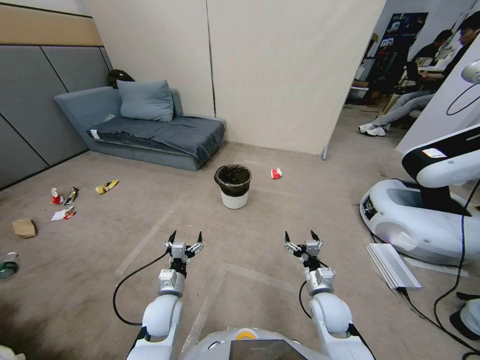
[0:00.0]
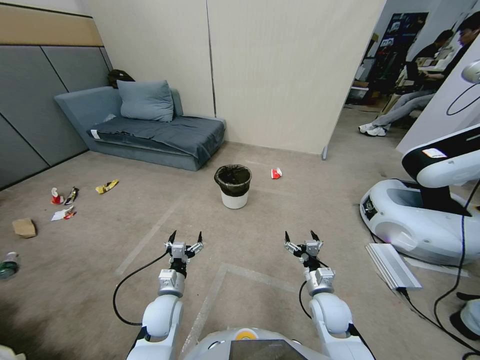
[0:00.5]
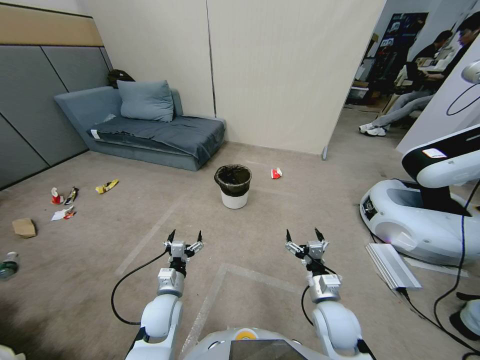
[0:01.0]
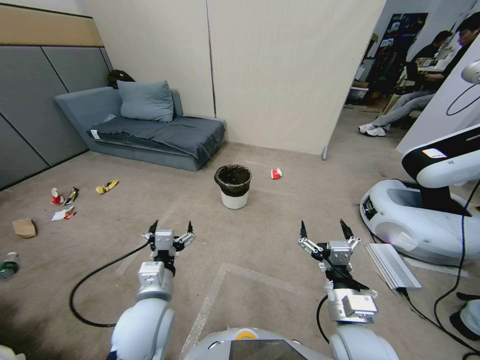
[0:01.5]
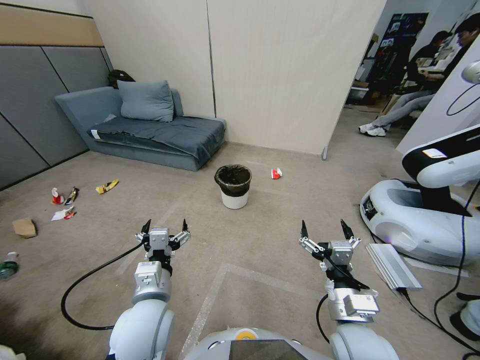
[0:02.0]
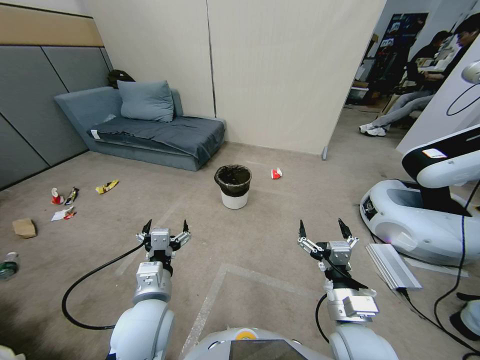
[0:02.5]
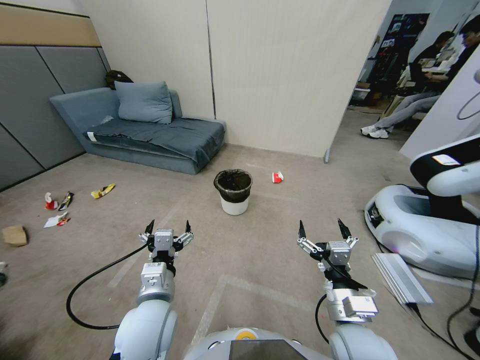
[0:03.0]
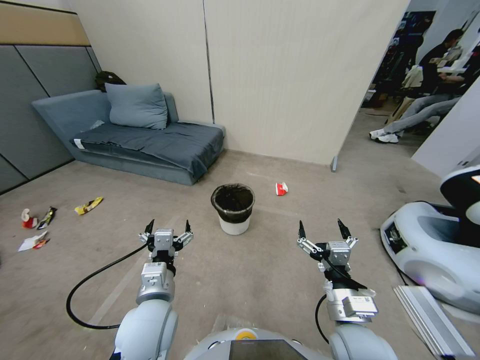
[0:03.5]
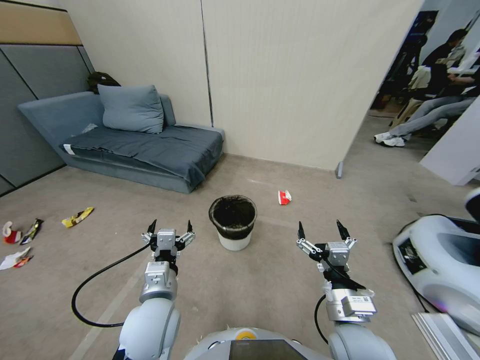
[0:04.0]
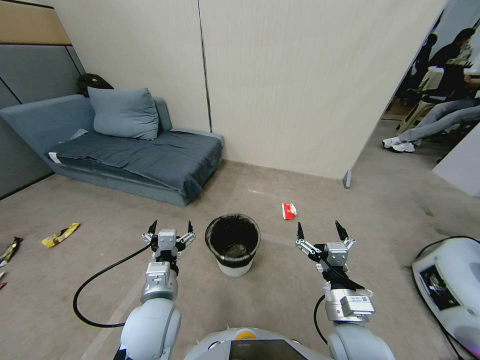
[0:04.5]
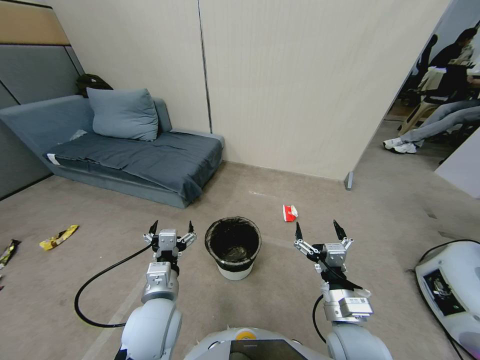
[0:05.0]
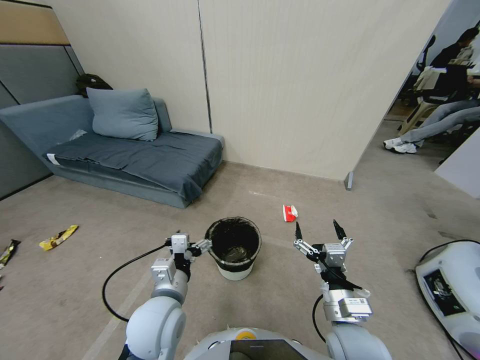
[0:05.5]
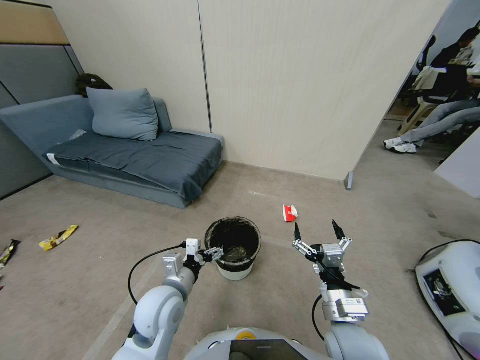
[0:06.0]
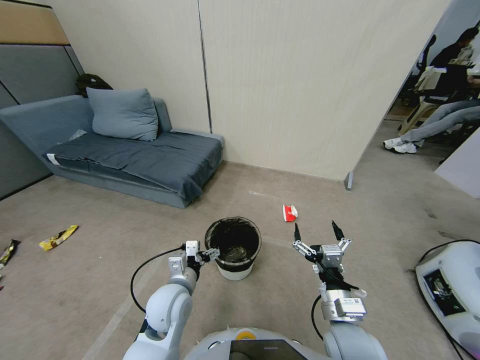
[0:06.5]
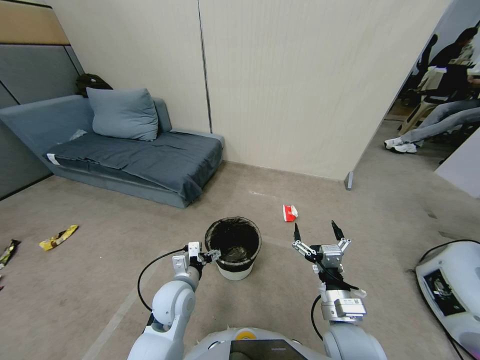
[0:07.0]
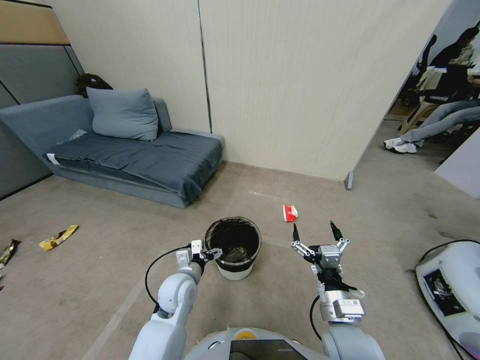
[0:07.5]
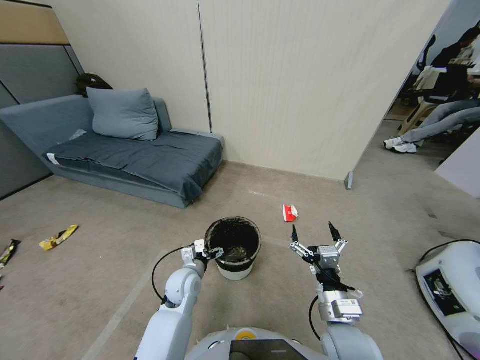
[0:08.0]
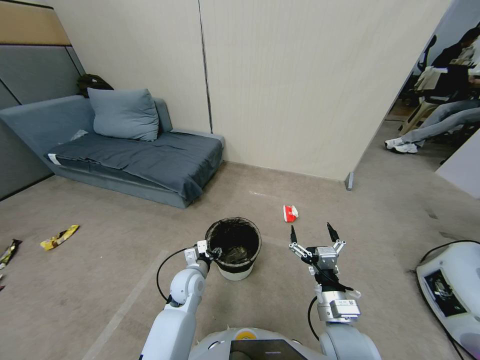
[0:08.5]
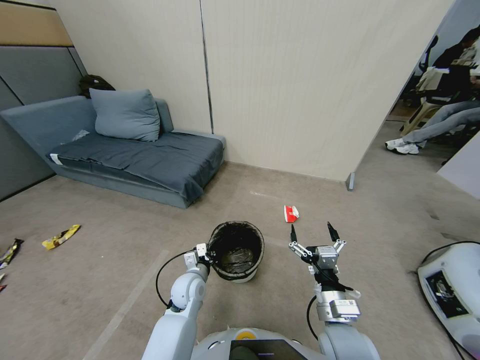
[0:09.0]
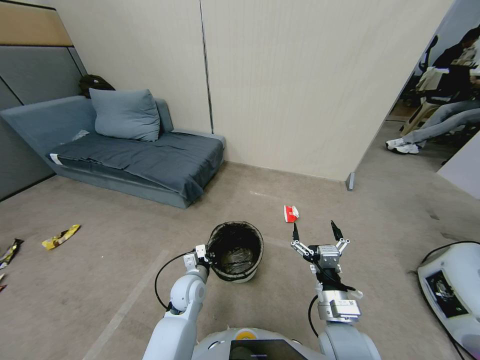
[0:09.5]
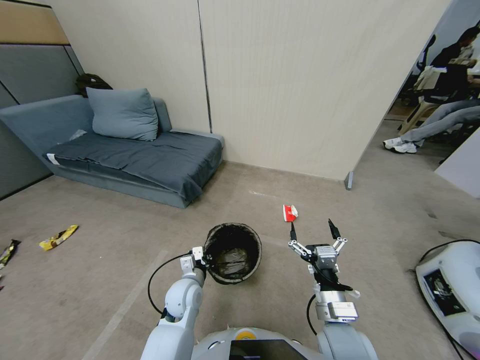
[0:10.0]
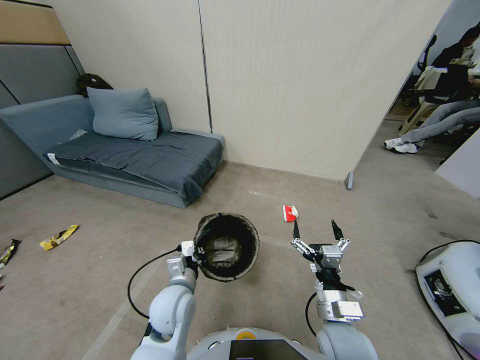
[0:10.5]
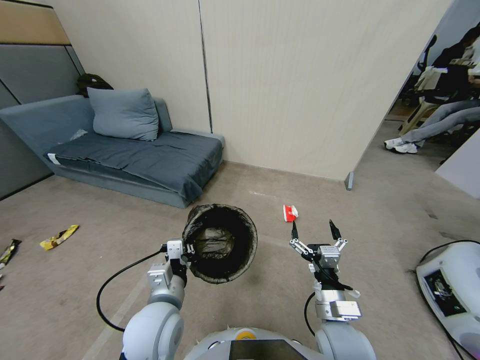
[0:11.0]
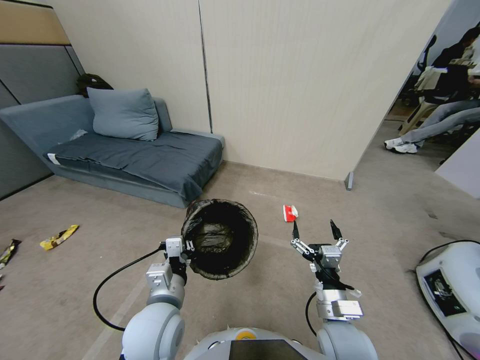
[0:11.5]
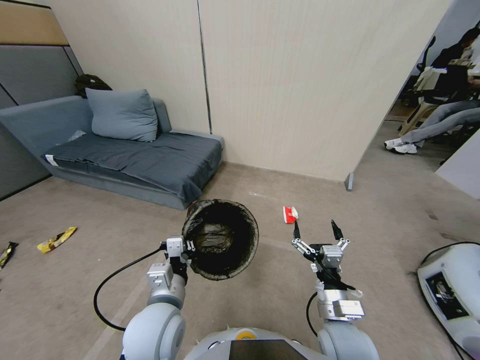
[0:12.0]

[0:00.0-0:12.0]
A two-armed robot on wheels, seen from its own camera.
Task of the whole recording: Pick up the trash bin, then pick up the garbage from the floor and place it into the trash bin.
0:04.0 to 0:06.0: The left gripper ends up roughly 5 cm from where it was.
0:06.0 to 0:08.0: The left gripper is displaced downward and forward by approximately 10 cm.
0:08.0 to 0:10.0: The left gripper closes up.
0:10.0 to 0:12.0: The left gripper travels upward and backward by some 15 cm.

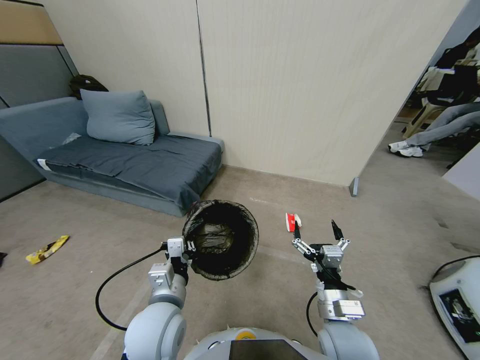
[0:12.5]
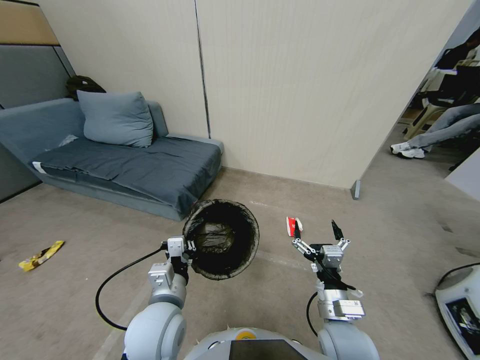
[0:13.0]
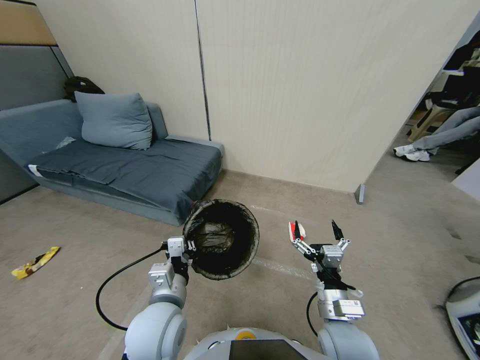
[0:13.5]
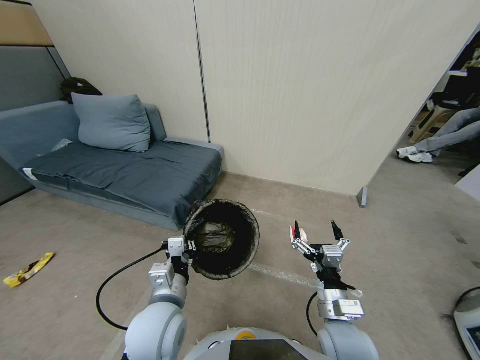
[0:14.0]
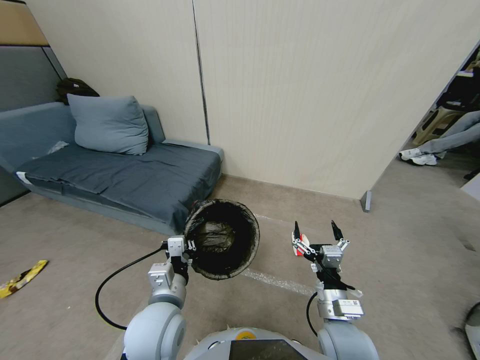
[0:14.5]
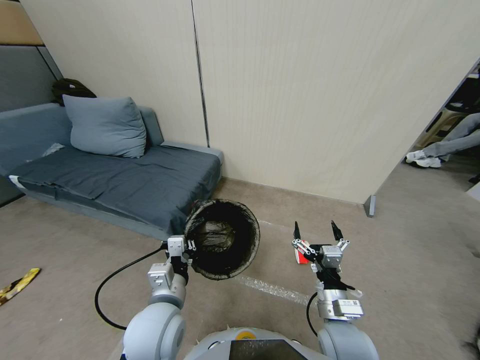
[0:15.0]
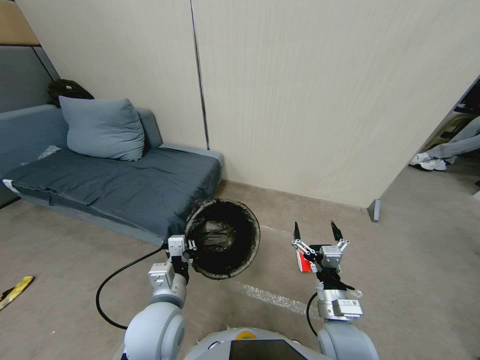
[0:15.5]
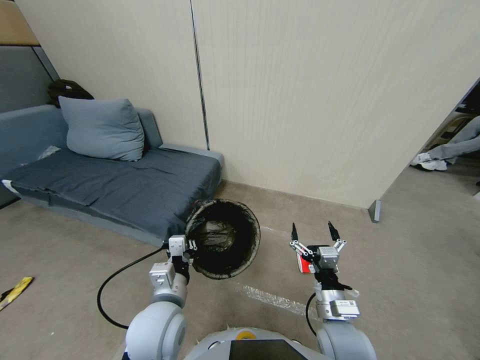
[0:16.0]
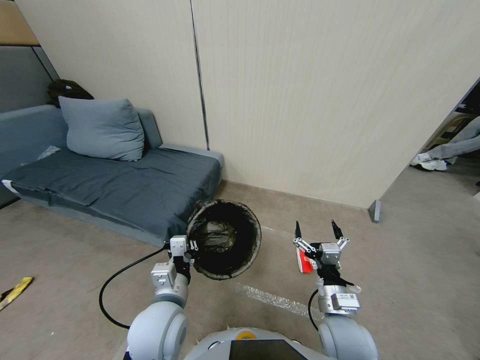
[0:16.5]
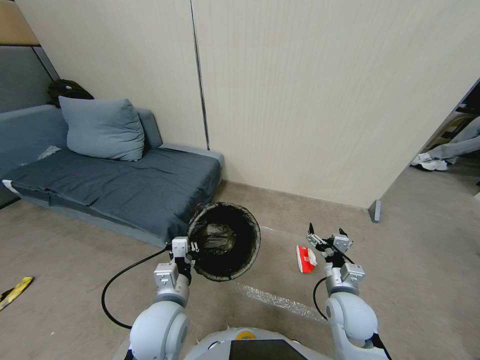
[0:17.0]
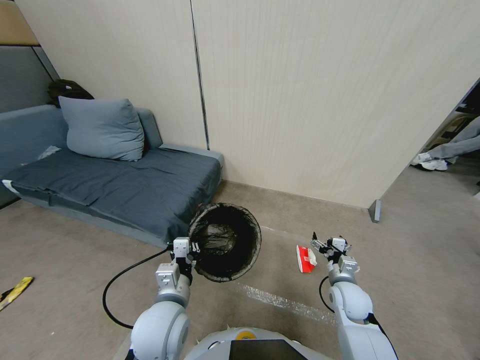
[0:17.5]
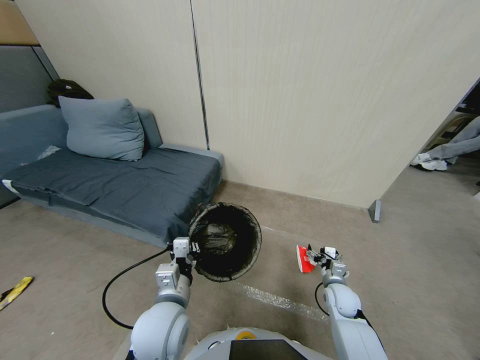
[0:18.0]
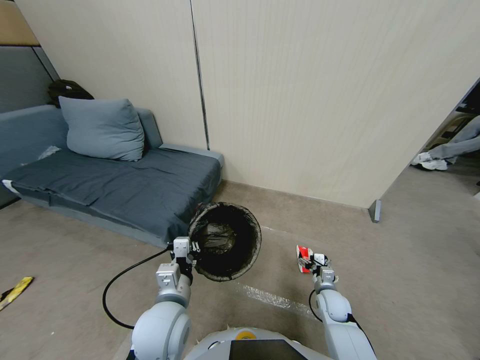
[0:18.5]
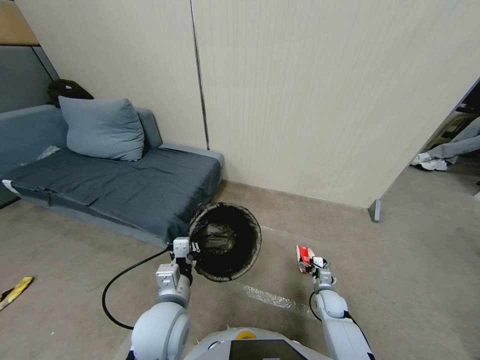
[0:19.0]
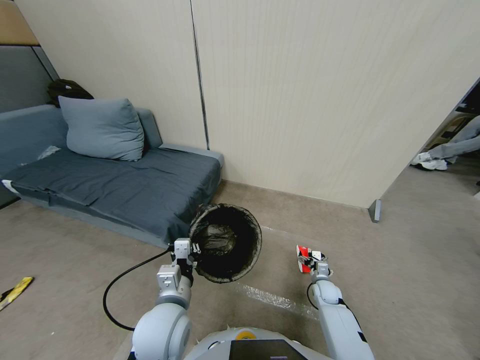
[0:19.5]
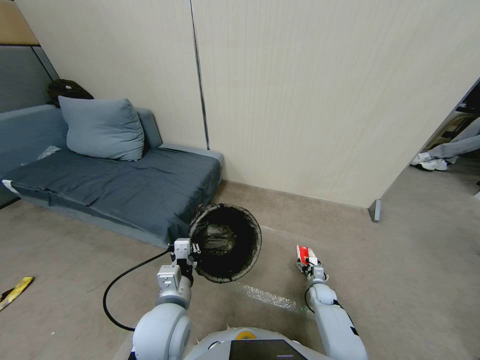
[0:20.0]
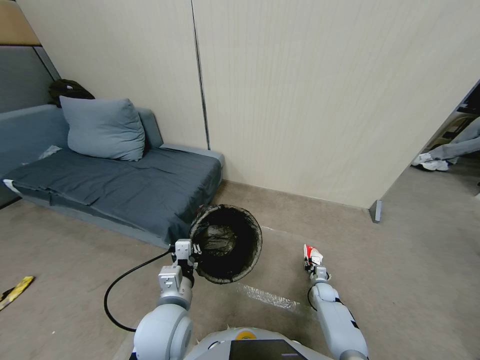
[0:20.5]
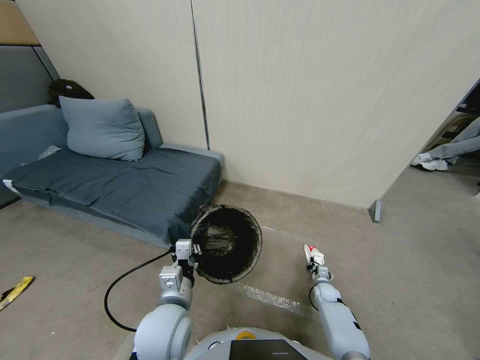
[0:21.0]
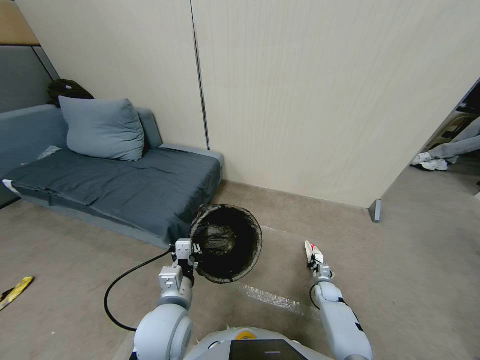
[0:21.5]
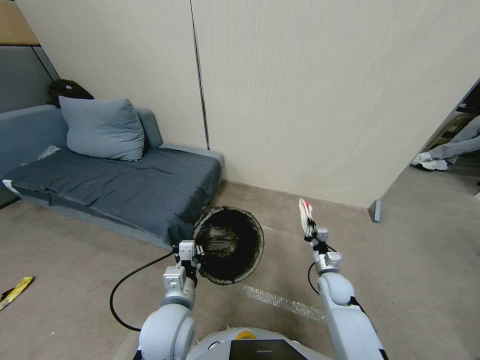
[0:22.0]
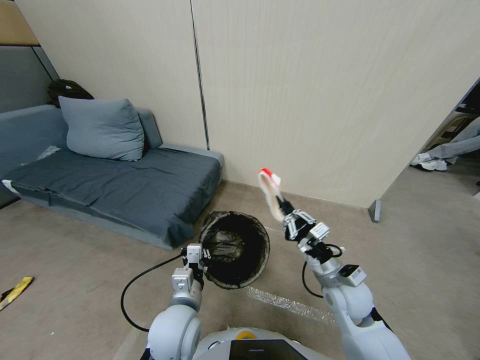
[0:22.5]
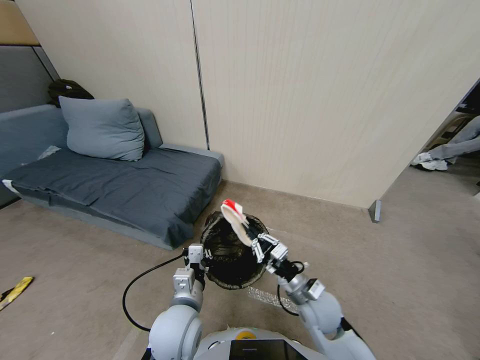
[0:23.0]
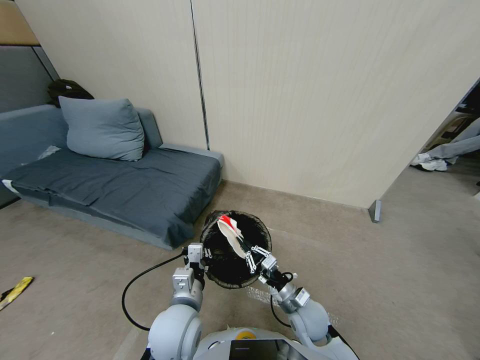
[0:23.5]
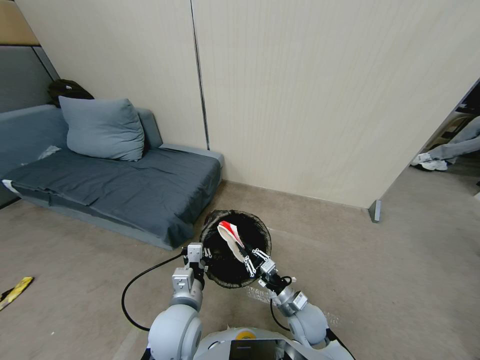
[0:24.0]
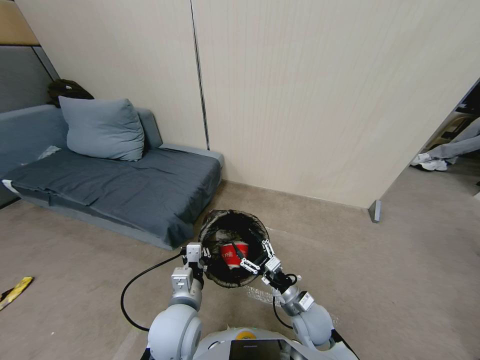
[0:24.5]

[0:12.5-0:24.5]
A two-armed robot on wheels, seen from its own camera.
Task of the whole recording: Pick up the trash bin, then pick up the garbage from the floor and place it into the trash bin.
0:12.5 to 0:14.5: Both grippers stay about where they are.
0:14.5 to 0:16.5: The grippers make only small movements.
0:16.5 to 0:18.5: The right gripper goes about 25 cm downward, forward and to the right.
0:18.5 to 0:20.5: The right gripper goes approximately 15 cm downward, forward and to the right, and closes up.
0:20.5 to 0:22.5: The right gripper is displaced upward and to the left by some 35 cm.
0:22.5 to 0:24.5: The right gripper travels downward and to the left by approximately 10 cm, and opens up.

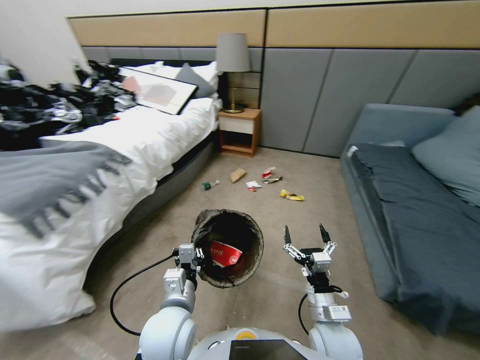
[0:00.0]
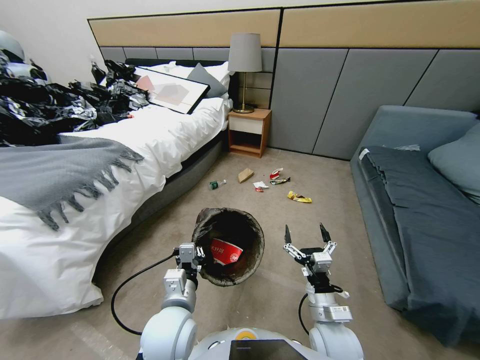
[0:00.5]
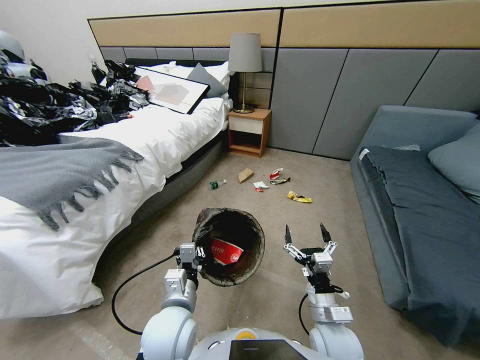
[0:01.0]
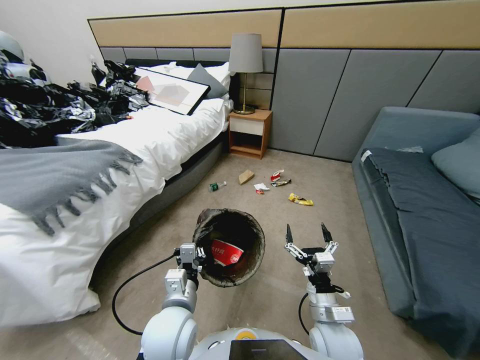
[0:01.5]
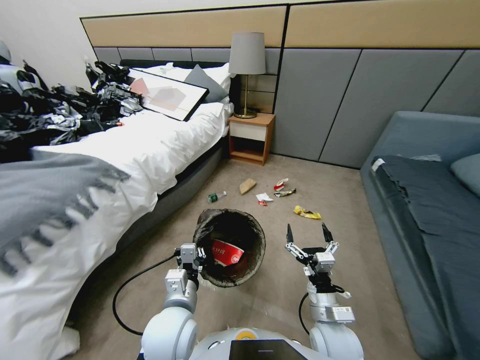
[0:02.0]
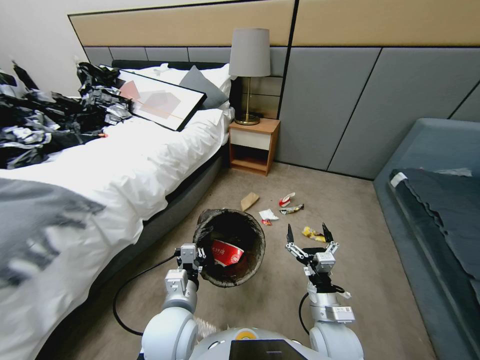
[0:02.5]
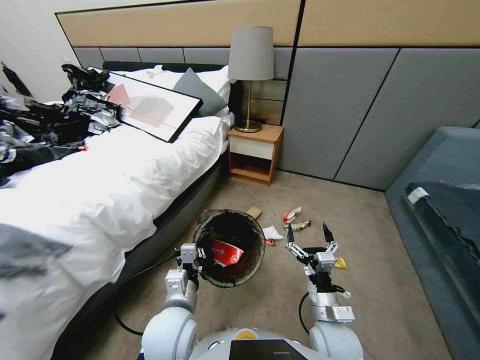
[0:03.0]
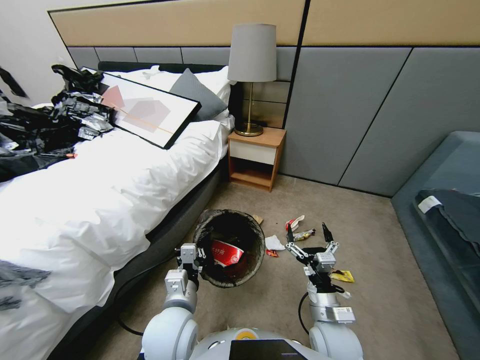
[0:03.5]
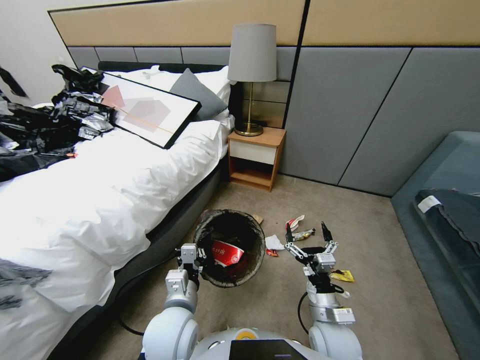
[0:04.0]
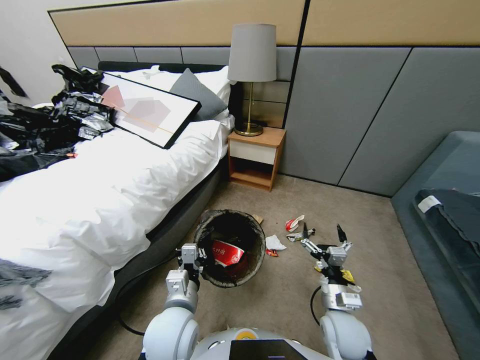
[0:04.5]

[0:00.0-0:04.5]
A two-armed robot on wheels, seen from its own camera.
Task of the whole recording: Pick up the trash bin, then pick up the garbage from the floor and place it into the trash bin.
0:02.0 to 0:04.5: The right gripper travels to the right by about 5 cm.
